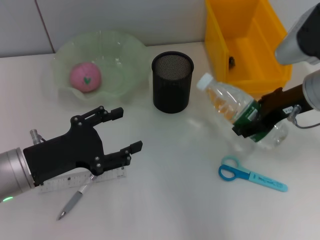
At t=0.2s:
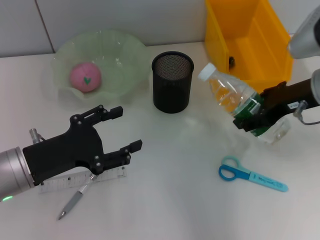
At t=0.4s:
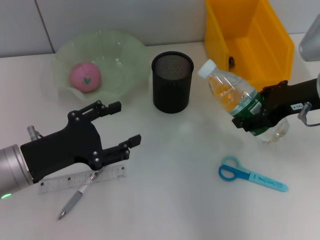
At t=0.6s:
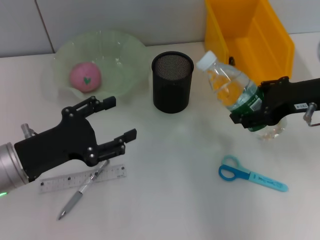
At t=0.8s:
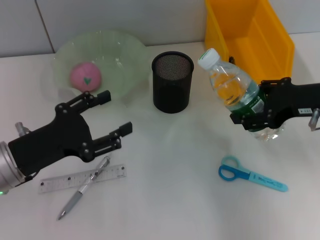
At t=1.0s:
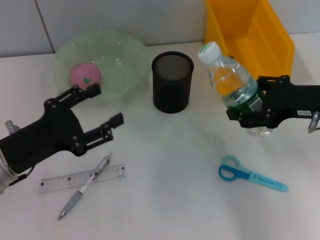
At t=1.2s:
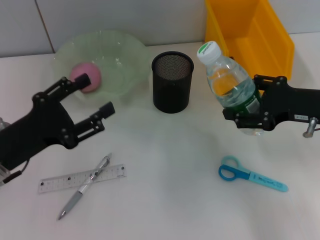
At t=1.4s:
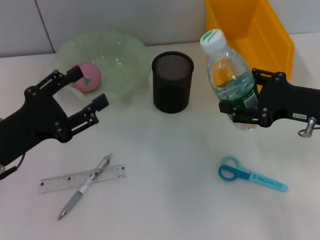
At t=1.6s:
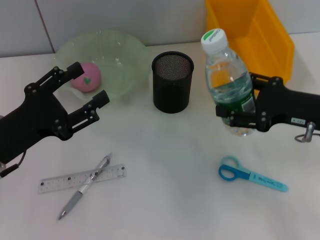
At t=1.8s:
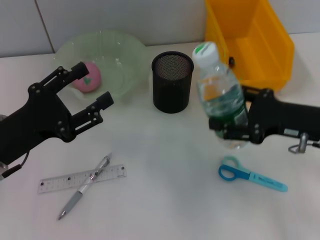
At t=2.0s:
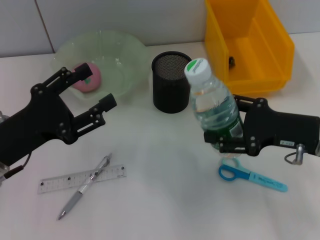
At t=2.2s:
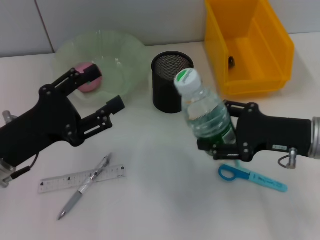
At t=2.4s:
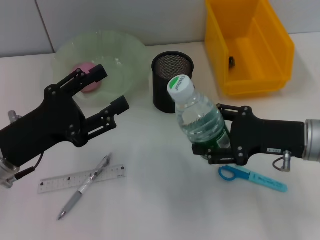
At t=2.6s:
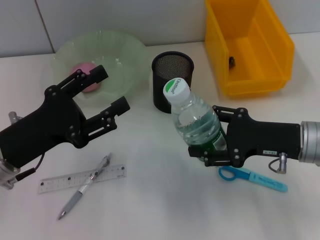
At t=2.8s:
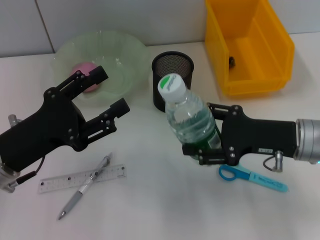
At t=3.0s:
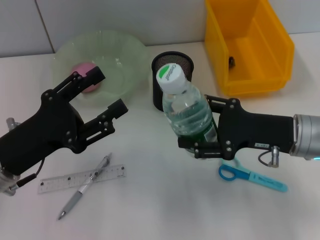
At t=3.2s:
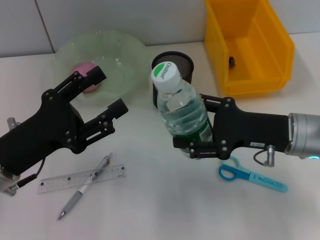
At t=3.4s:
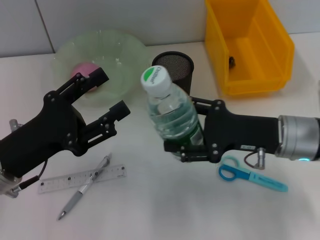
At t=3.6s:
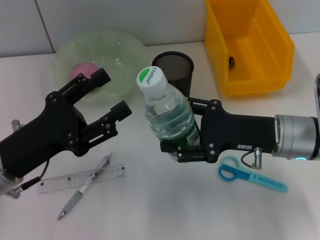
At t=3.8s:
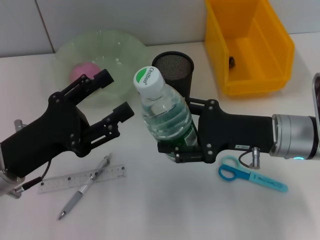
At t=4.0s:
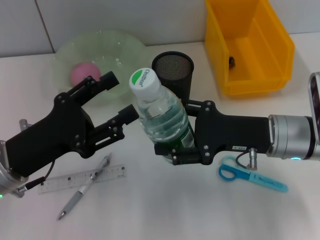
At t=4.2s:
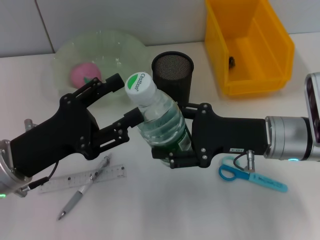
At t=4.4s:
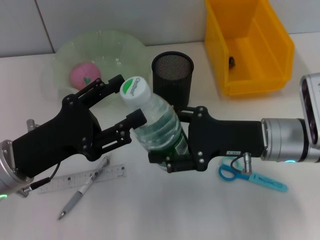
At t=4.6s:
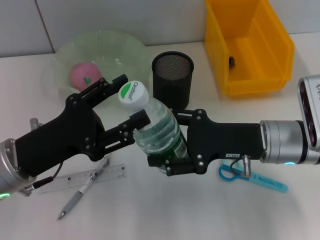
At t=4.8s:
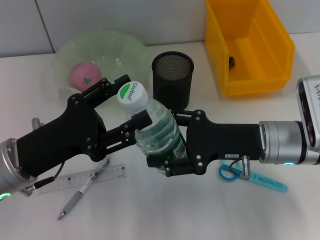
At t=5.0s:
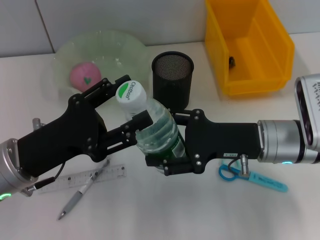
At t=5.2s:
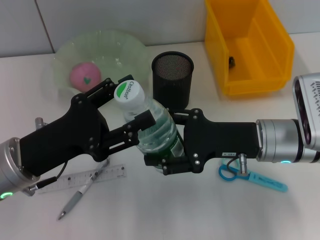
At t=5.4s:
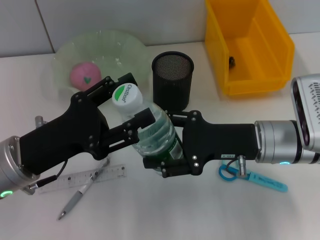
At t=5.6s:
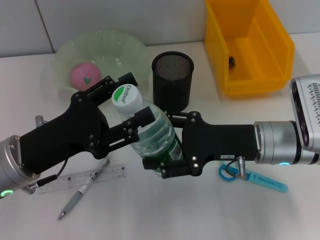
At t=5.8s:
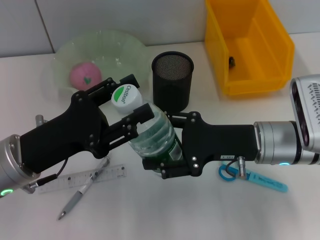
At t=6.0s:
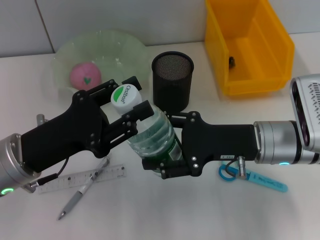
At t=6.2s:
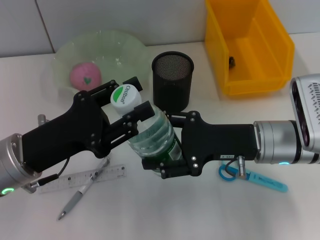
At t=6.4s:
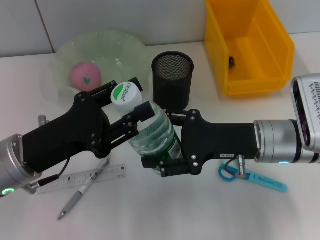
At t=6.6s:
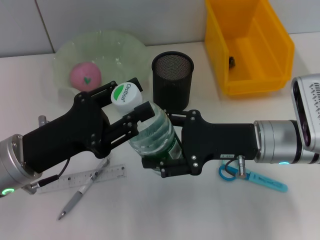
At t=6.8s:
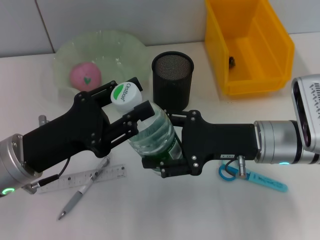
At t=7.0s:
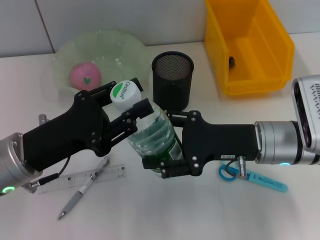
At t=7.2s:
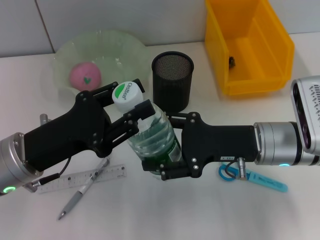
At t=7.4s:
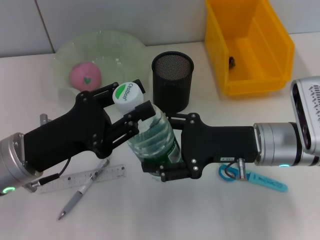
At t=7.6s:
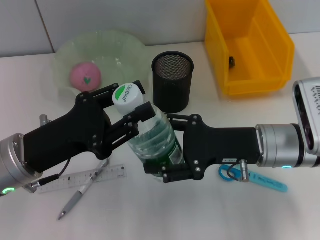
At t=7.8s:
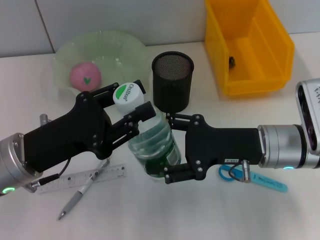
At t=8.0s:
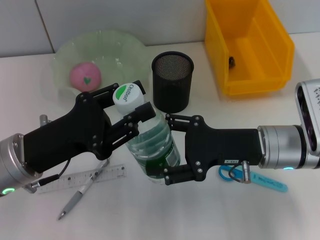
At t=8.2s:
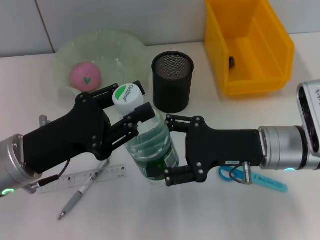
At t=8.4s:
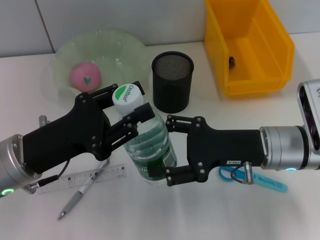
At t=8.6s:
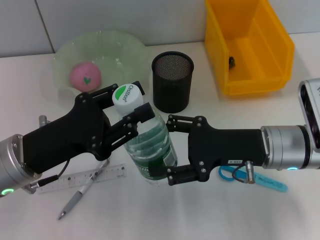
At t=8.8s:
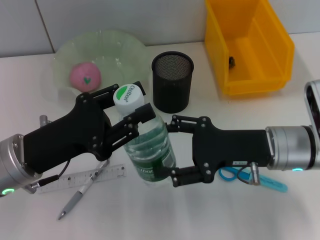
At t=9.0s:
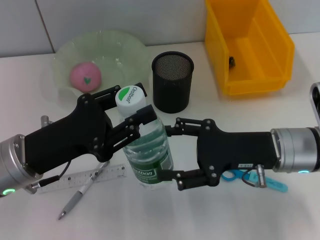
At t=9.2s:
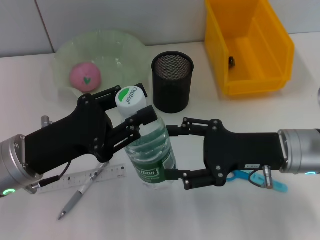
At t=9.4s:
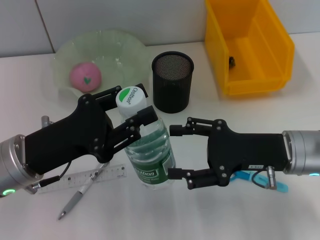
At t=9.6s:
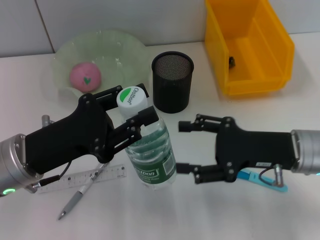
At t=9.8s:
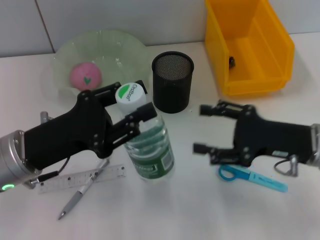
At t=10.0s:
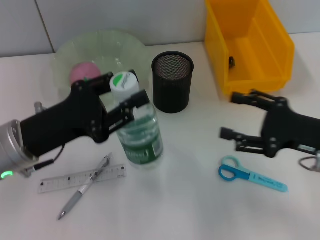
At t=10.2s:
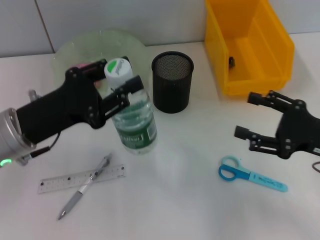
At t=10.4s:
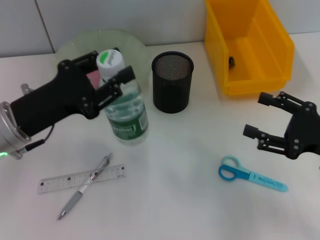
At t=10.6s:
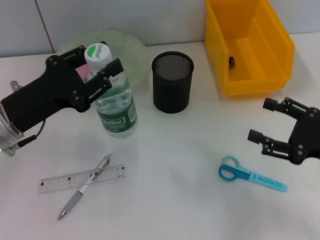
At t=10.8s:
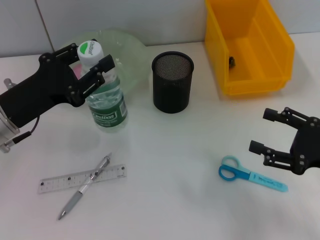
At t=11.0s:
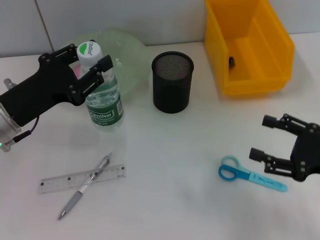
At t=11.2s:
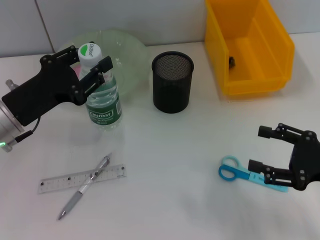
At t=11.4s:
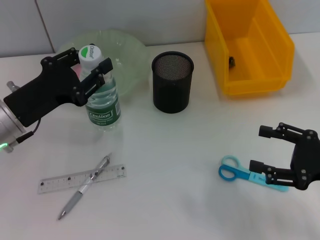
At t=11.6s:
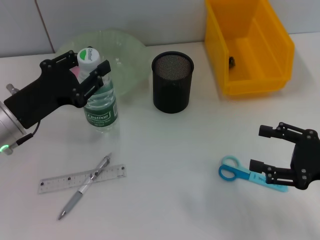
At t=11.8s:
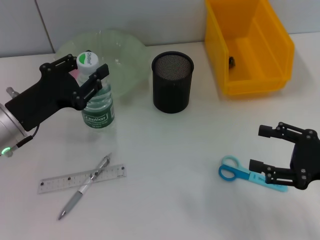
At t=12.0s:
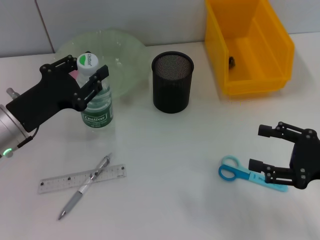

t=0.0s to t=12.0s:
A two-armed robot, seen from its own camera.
Step, t=0.0s to t=9.2s: Pass the water bottle from the right hand to the left hand.
t=0.0s to t=1.6s: The right gripper heads backward, covering approximately 5 cm.
t=1.6s to t=3.0s: The right gripper shifts by roughly 5 cm.
t=4.4s to t=6.0s: Both grippers stay about where they are.
t=6.0s to t=7.6s: Both grippers stay put.
t=7.6s to t=9.0s: There are only small adjustments of the grippers.
t=9.0s to t=10.4s: The right gripper is displaced to the right by approximately 10 cm.

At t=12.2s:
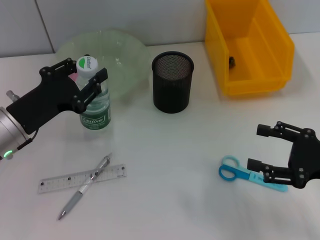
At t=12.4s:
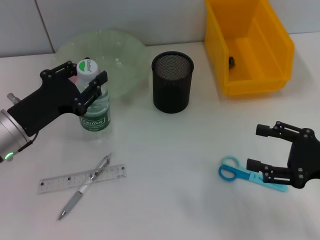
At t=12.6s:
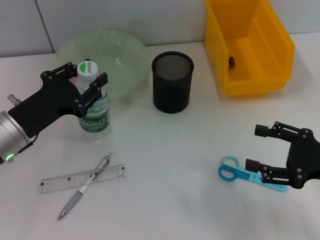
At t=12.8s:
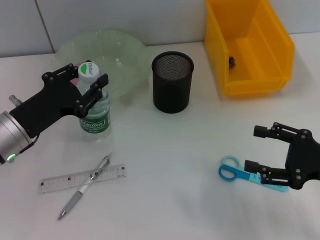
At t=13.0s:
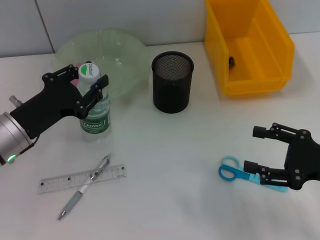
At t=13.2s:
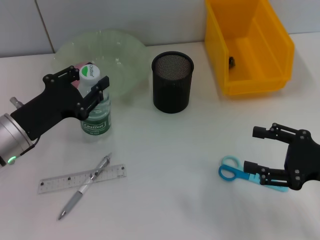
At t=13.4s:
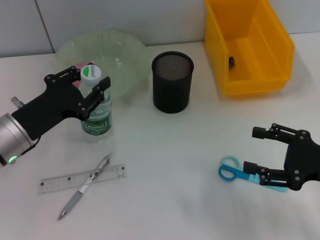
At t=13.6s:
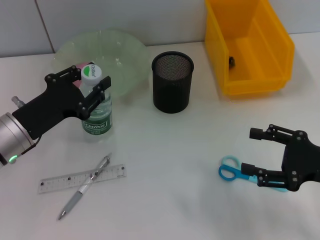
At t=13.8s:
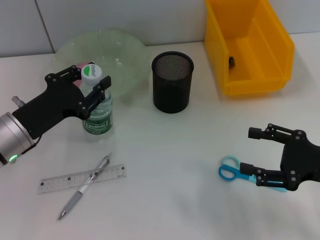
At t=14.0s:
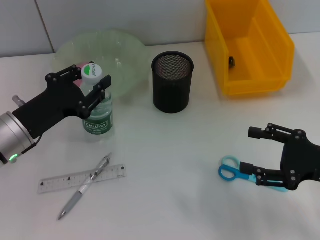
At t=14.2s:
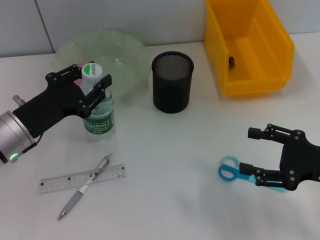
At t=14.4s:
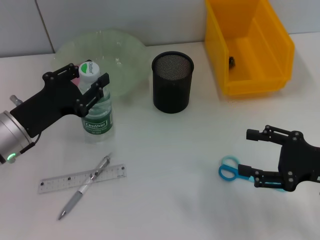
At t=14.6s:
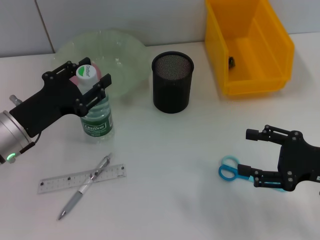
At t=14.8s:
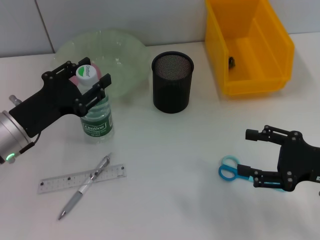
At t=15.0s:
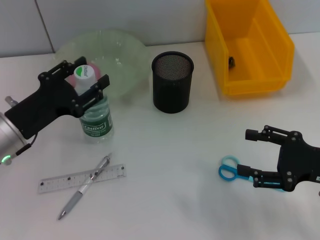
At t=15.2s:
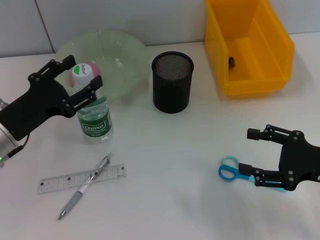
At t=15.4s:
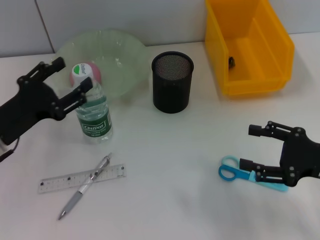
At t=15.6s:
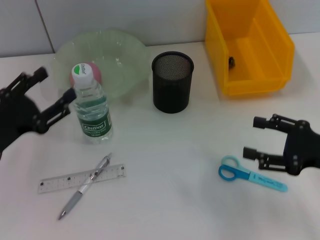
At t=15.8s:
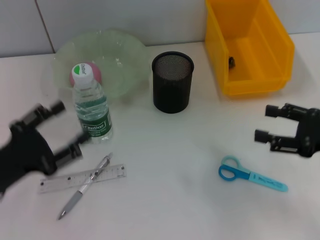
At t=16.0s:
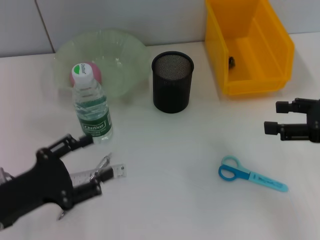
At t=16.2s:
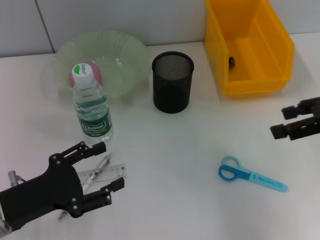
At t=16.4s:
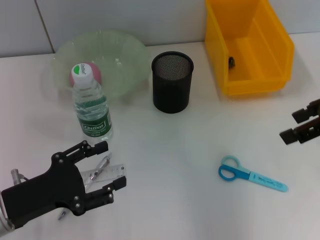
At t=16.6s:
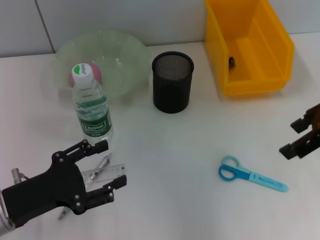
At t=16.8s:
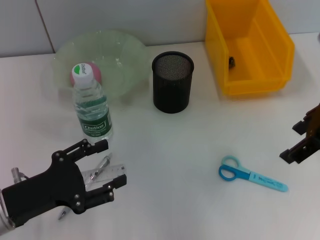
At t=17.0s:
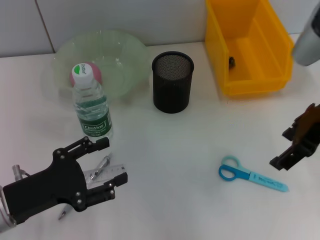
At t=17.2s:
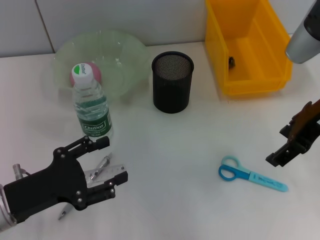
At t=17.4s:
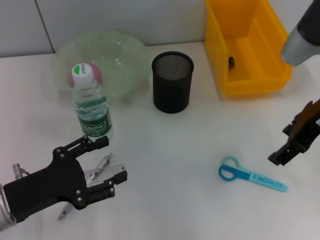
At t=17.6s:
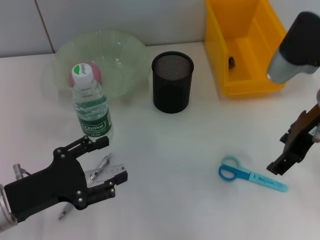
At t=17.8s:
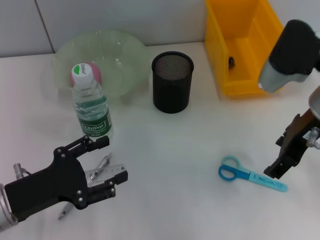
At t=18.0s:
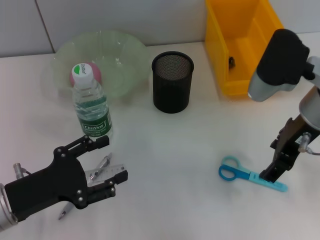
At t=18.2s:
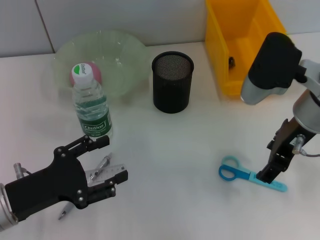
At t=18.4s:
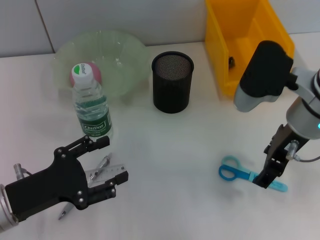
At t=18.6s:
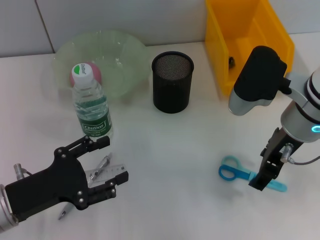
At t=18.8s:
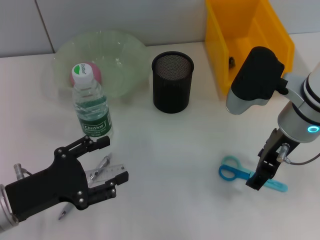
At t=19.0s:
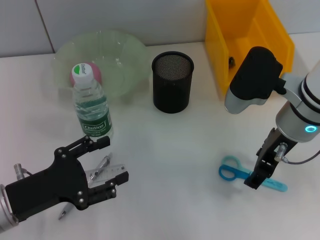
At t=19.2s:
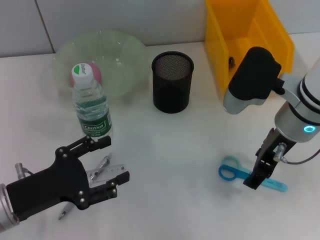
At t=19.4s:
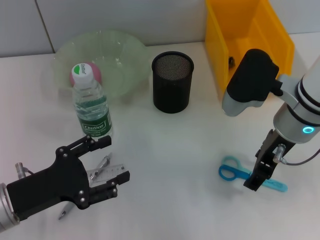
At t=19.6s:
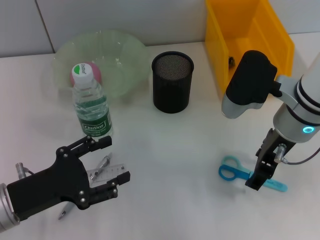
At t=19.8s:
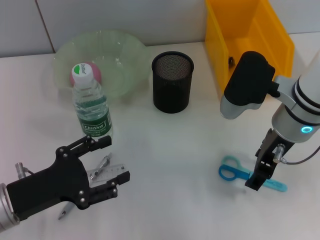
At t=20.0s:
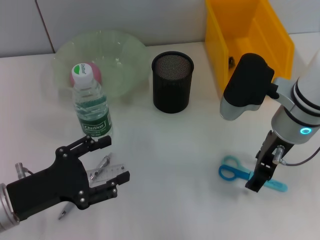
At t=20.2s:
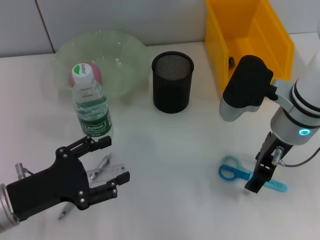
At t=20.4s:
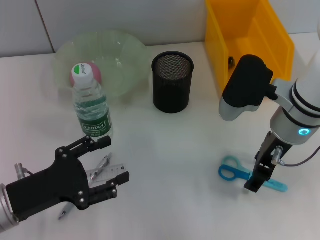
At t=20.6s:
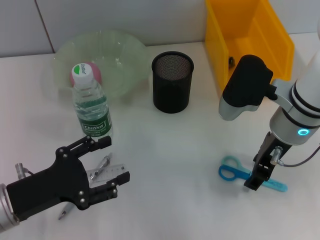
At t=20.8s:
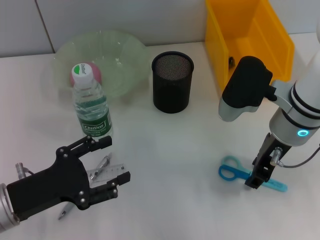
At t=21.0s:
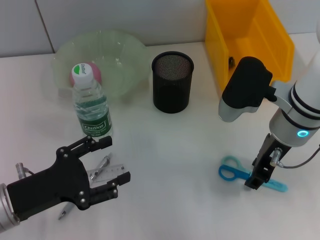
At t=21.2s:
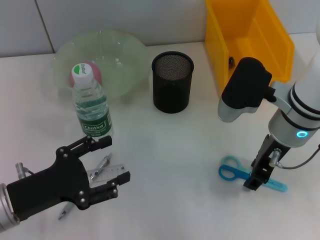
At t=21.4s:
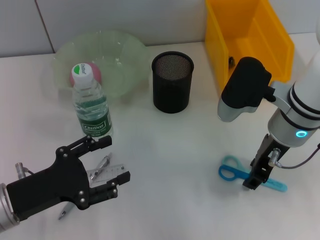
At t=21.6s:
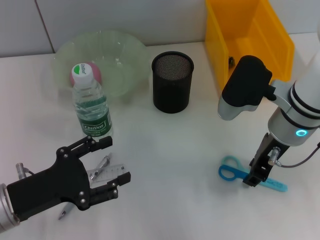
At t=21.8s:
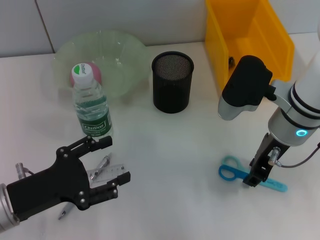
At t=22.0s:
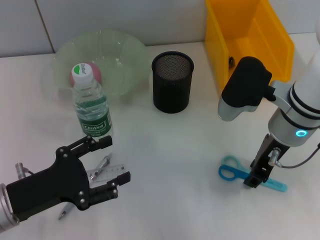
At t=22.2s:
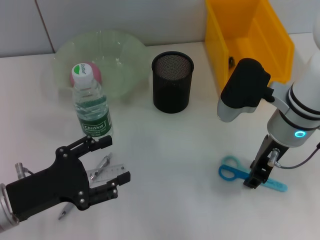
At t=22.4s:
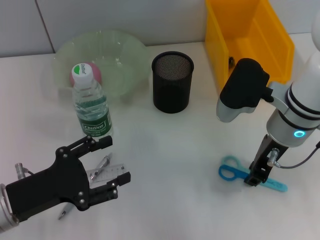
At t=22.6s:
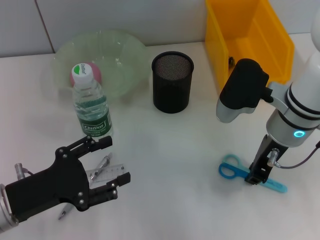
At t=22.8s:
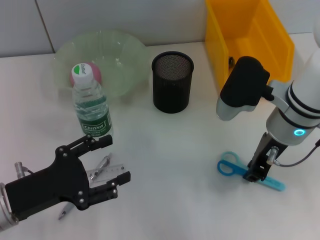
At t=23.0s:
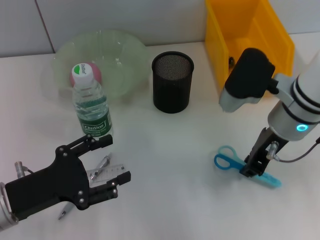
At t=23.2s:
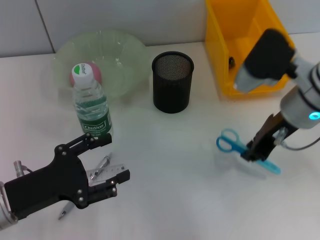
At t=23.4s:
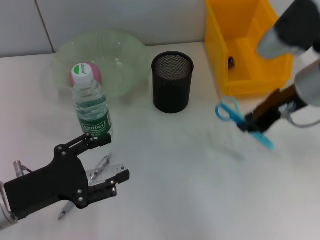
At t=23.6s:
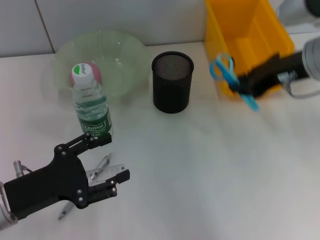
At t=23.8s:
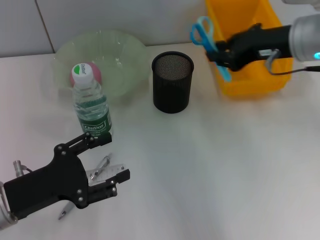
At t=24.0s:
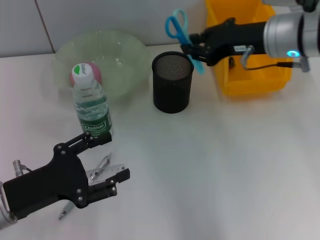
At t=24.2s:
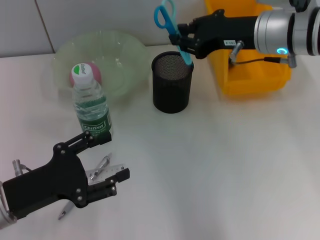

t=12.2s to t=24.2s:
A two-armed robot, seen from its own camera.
Step, t=12.2s to t=15.0s: Place the water bottle on the table with the left hand.
Step, t=15.2s to t=22.4s: Grab the blue utility knife with the right hand.
t=12.2s to t=13.8s: Both grippers stay put.
t=13.8s to t=15.2s: The grippers move only a little.
t=15.2s to t=16.6s: The right gripper goes about 20 cm upward and forward; the left gripper goes some 10 cm backward.
t=16.6s to t=18.2s: The right gripper shifts approximately 10 cm to the left and downward.
t=18.2s to t=19.8s: The grippers make only small movements.
t=19.8s to t=21.2s: Neither gripper changes place.
t=21.2s to t=22.6s: The two grippers keep their place.
t=22.6s to t=24.2s: The right gripper travels upward and forward by approximately 10 cm.
